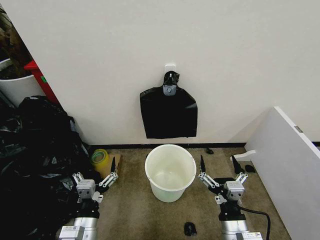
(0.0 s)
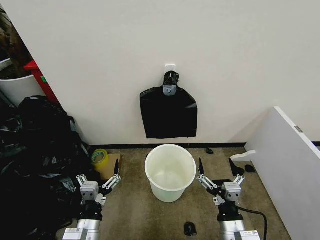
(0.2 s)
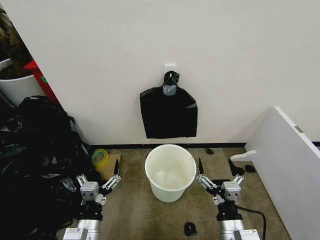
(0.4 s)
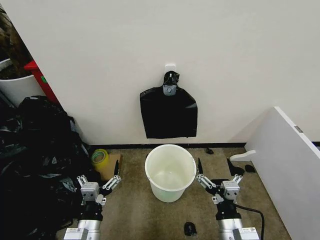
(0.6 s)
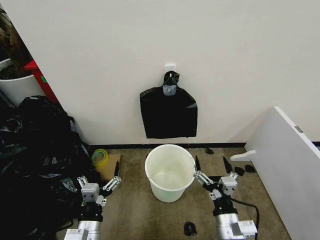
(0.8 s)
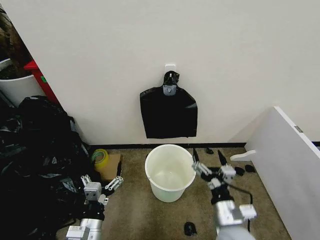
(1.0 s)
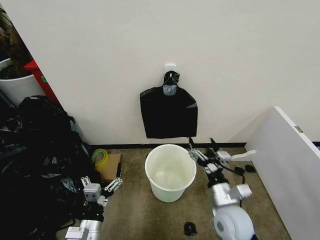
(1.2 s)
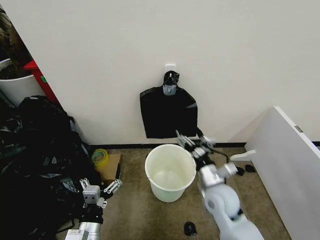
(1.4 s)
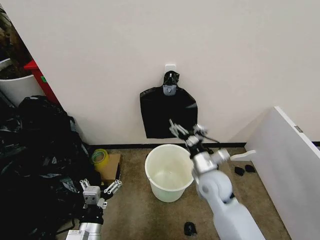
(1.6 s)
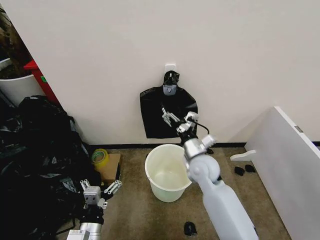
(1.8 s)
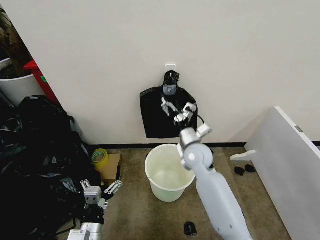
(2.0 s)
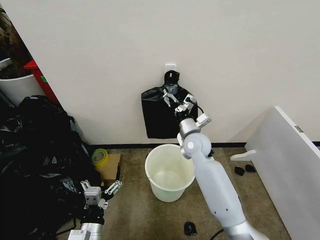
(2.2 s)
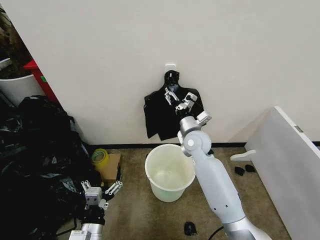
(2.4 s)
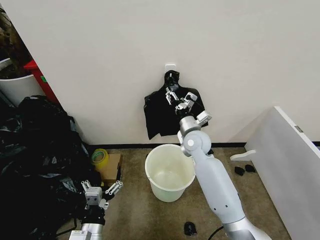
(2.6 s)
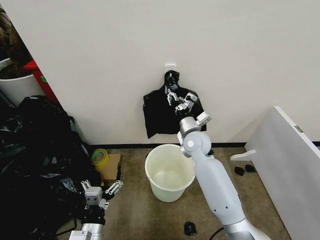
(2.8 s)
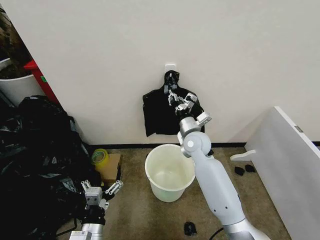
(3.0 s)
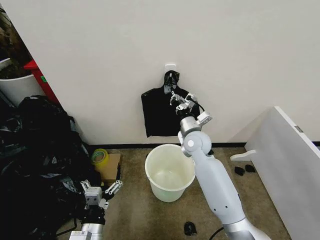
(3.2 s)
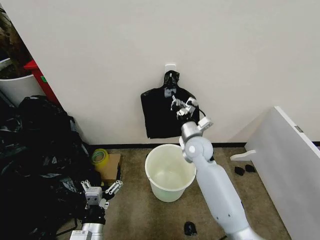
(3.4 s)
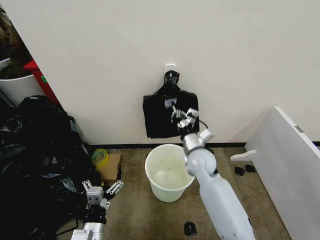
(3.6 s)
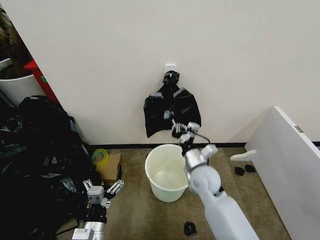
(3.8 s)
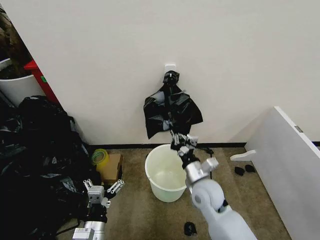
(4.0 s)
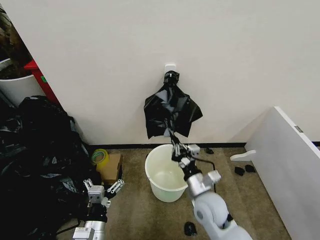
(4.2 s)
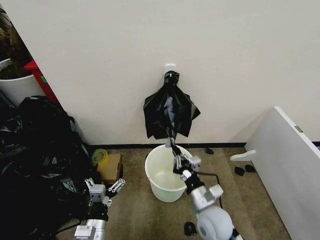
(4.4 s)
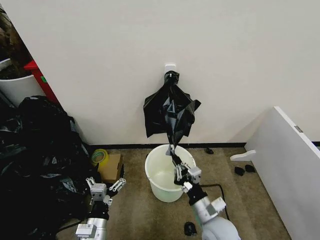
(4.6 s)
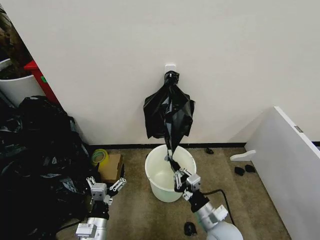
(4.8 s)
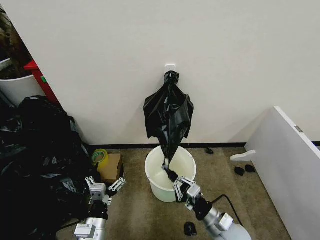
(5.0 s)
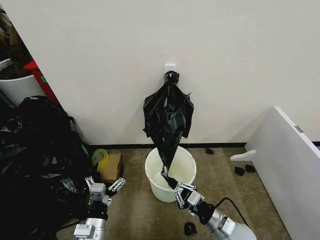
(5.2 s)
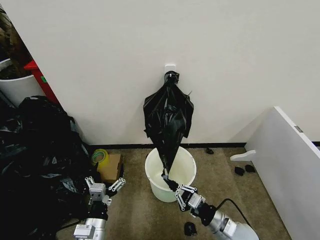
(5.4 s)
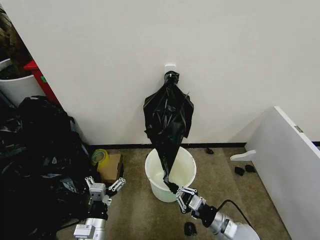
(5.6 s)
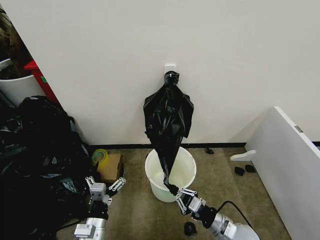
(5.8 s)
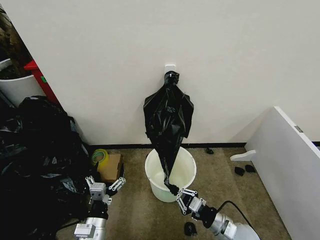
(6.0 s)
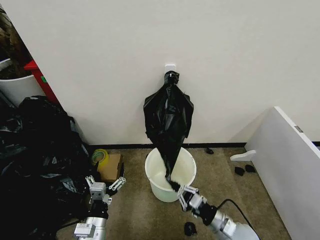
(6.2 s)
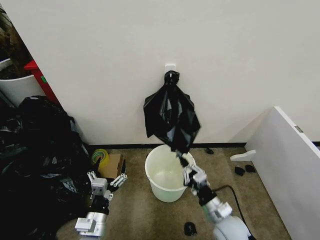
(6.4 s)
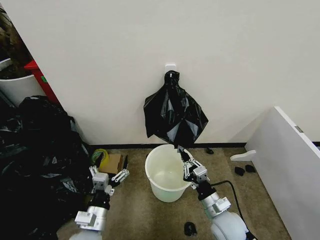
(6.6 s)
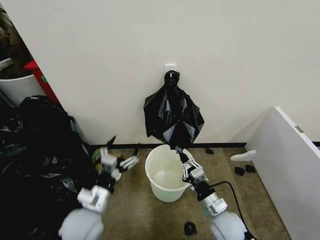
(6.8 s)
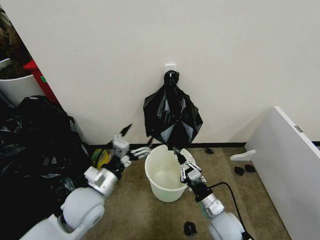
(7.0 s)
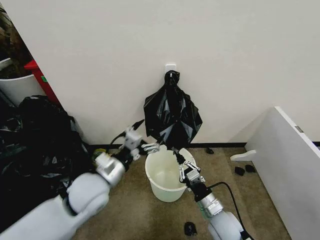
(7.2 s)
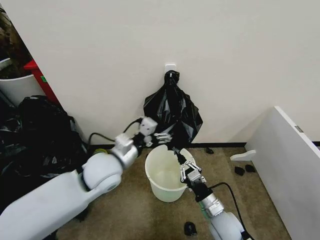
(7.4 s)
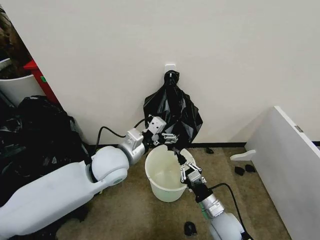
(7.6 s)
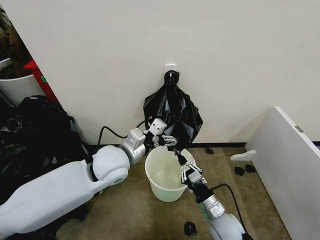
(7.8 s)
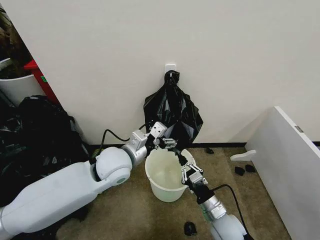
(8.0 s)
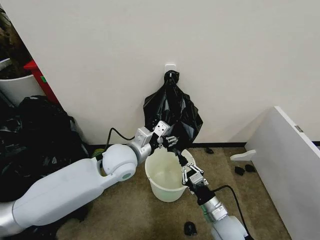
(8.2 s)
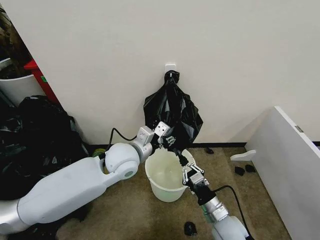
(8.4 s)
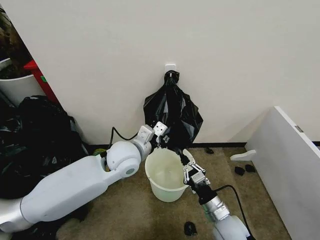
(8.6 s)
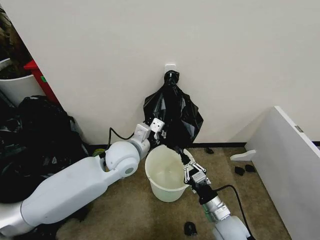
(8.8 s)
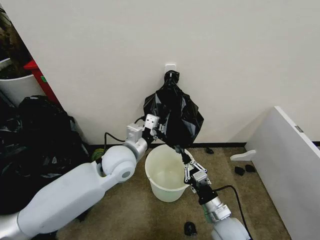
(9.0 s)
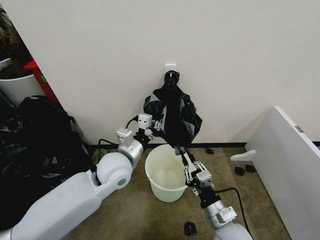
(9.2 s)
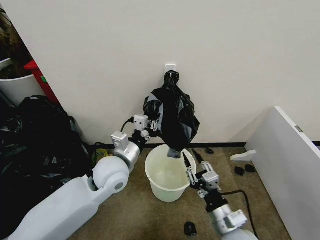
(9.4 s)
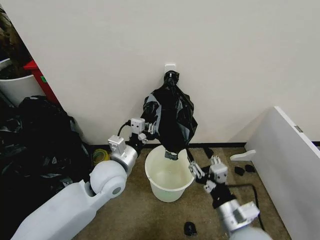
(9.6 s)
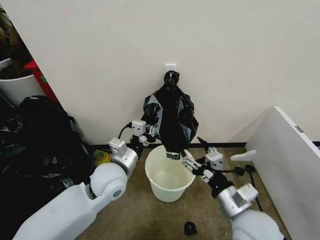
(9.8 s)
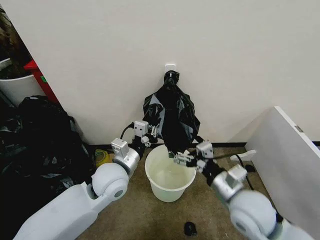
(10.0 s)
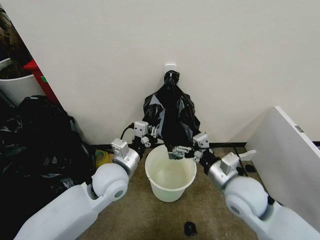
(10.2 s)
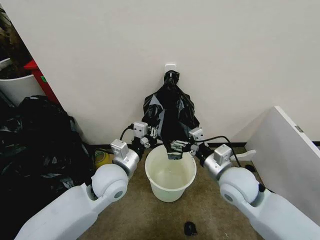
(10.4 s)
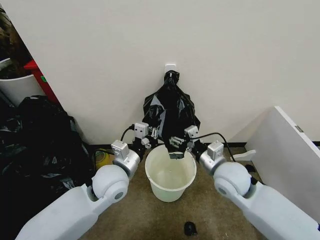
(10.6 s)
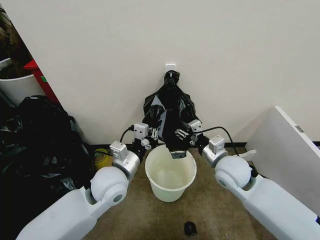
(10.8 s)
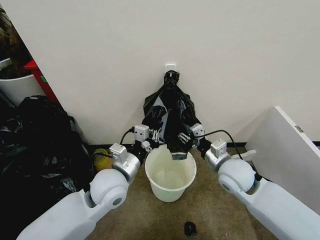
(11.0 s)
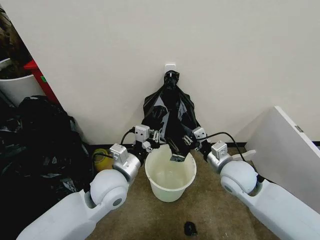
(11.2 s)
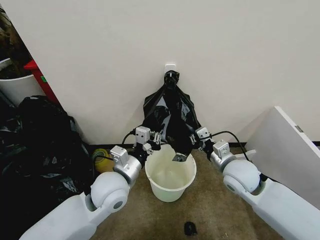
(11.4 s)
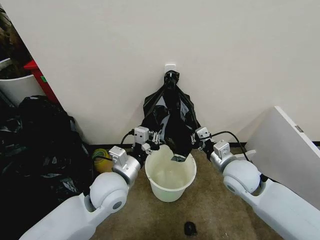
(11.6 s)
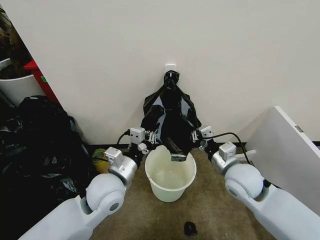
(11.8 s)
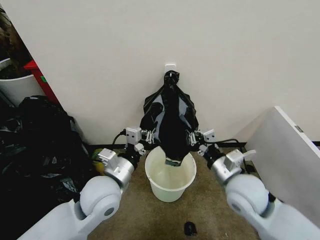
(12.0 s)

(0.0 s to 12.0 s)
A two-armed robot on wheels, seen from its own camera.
Task of the whole recording: Place the garbage bag over the trash bin.
1.6 s - 3.0 s: The right gripper shifts some 10 cm forward, and closes up.
3.0 s - 4.4 s: The right gripper heads backward and downward, covering roughly 25 cm.
4.4 s - 6.0 s: The right gripper travels to the right and downward by about 10 cm.
6.0 s - 7.6 s: The left gripper shifts roughly 25 cm upward and forward. Meanwhile the right gripper moves about 5 cm.
7.6 s - 9.0 s: The left gripper closes up.
9.0 s - 10.4 s: The left gripper changes place by roughly 5 cm. Meanwhile the right gripper goes some 15 cm upward and forward, and opens.
10.4 s - 12.0 s: The right gripper closes up.

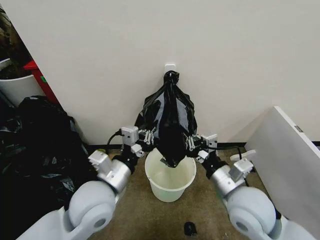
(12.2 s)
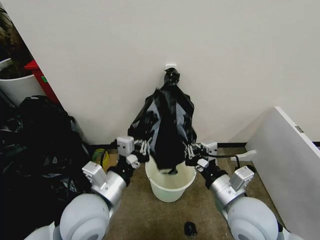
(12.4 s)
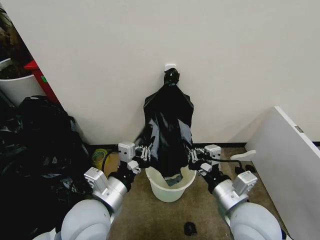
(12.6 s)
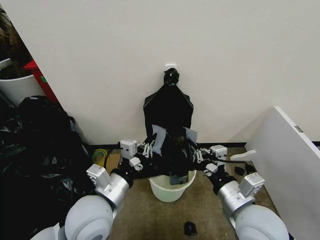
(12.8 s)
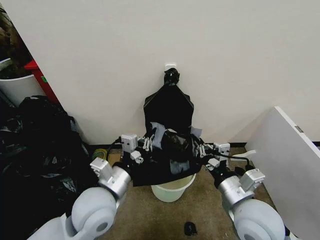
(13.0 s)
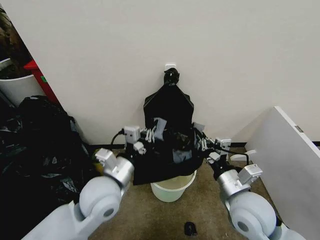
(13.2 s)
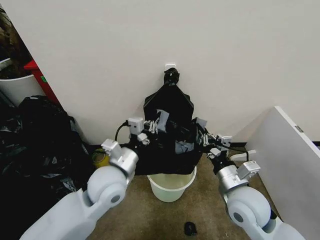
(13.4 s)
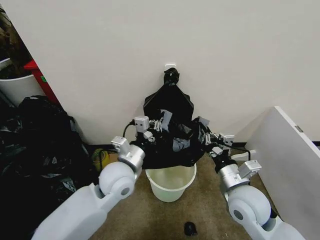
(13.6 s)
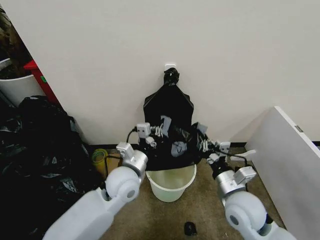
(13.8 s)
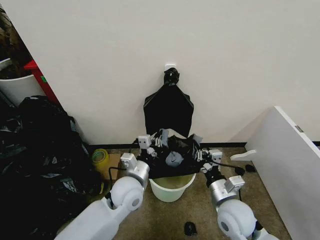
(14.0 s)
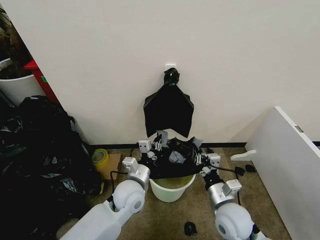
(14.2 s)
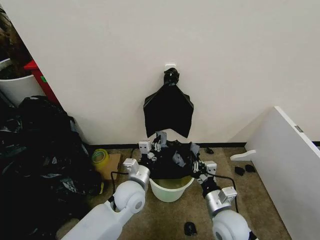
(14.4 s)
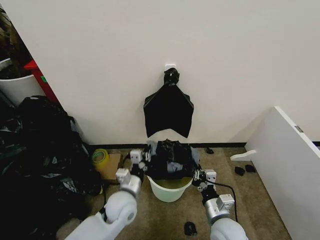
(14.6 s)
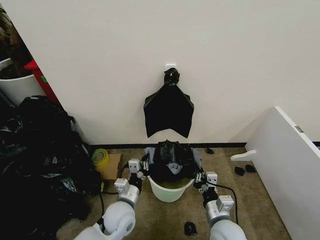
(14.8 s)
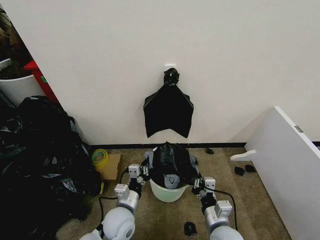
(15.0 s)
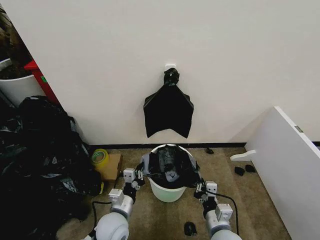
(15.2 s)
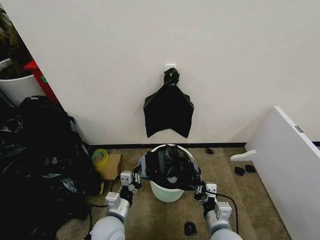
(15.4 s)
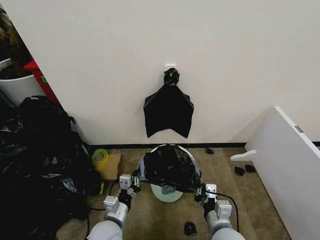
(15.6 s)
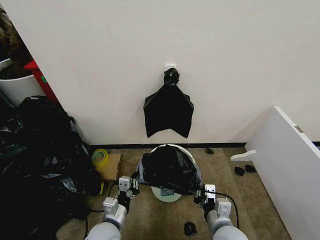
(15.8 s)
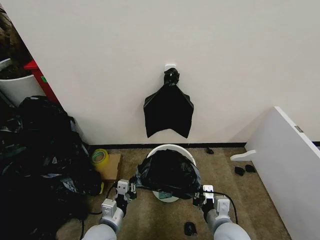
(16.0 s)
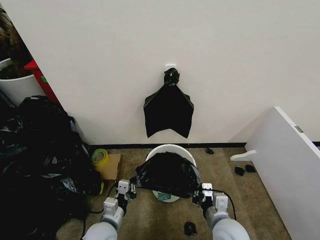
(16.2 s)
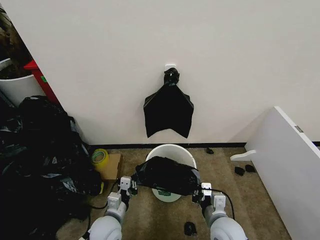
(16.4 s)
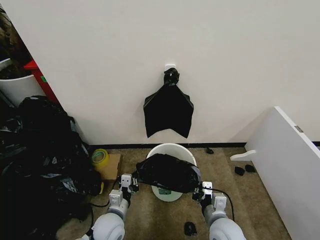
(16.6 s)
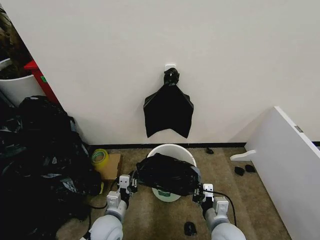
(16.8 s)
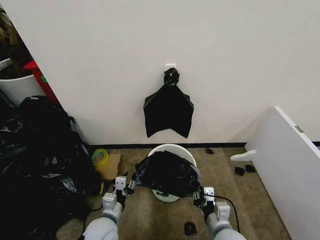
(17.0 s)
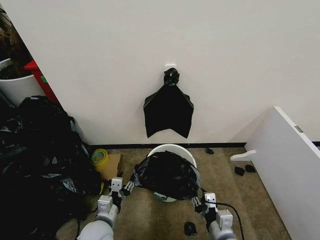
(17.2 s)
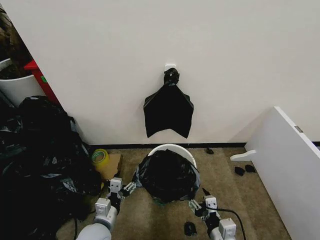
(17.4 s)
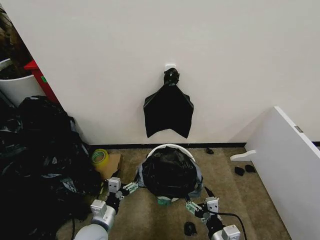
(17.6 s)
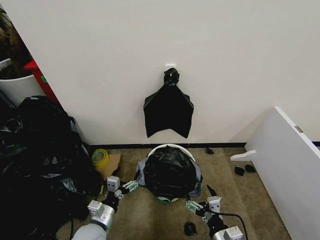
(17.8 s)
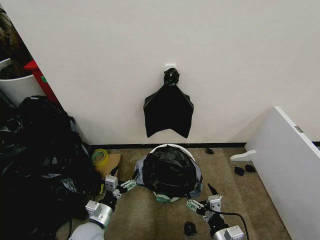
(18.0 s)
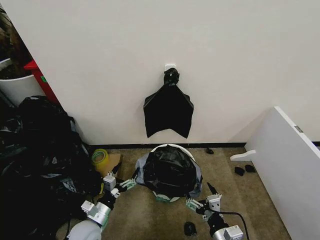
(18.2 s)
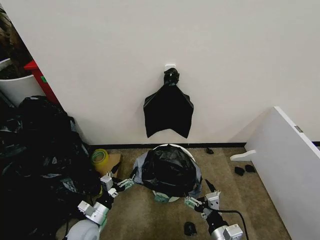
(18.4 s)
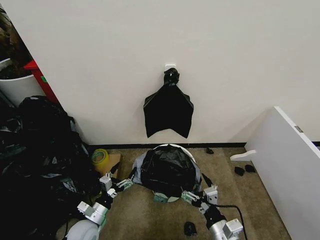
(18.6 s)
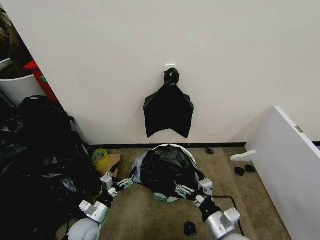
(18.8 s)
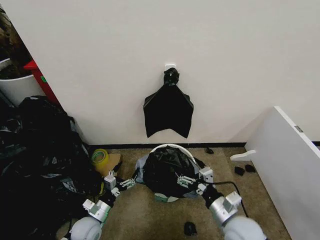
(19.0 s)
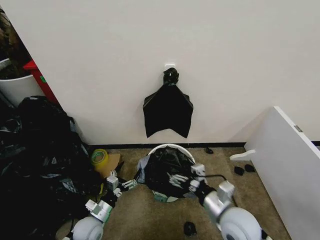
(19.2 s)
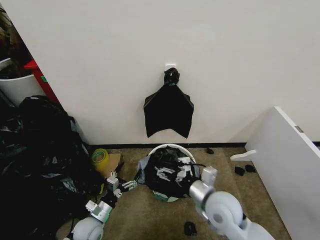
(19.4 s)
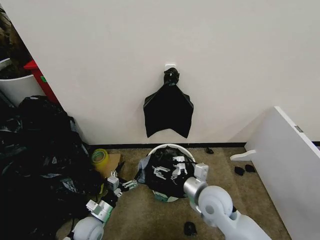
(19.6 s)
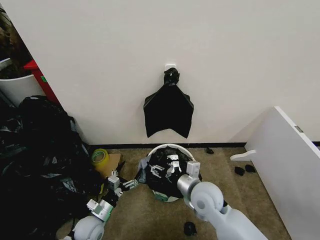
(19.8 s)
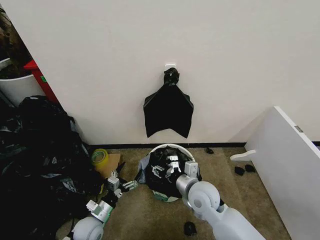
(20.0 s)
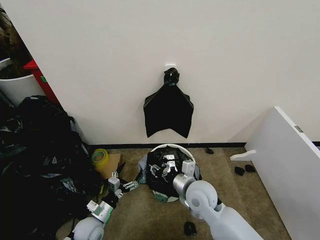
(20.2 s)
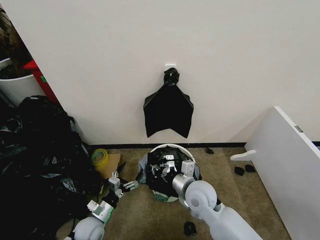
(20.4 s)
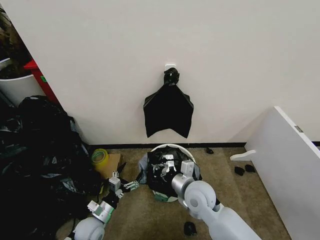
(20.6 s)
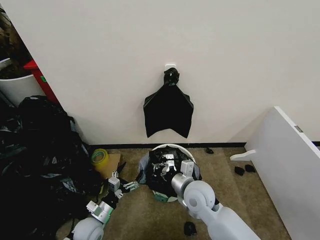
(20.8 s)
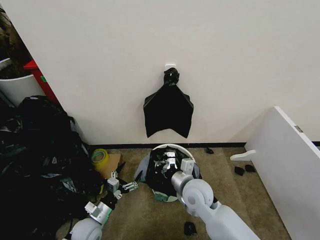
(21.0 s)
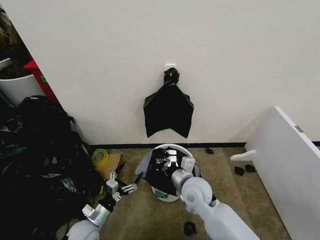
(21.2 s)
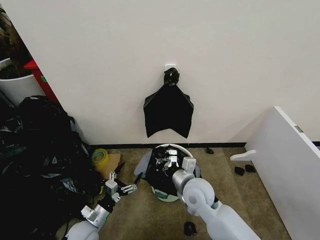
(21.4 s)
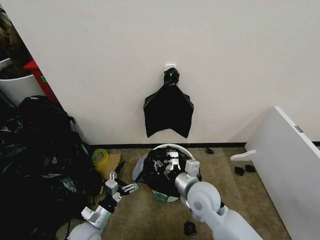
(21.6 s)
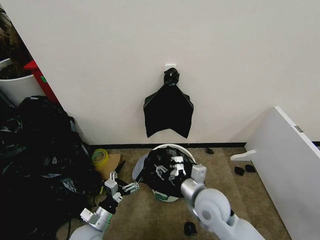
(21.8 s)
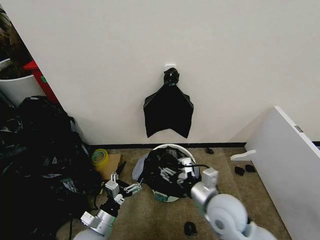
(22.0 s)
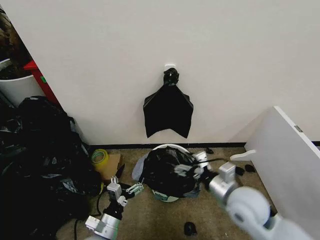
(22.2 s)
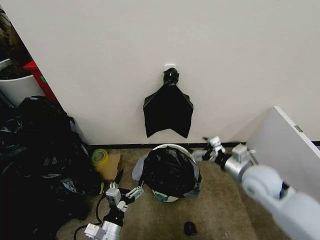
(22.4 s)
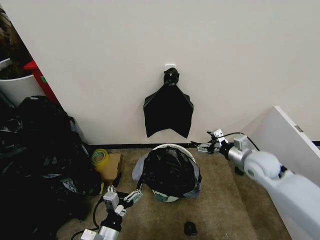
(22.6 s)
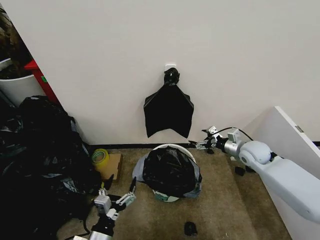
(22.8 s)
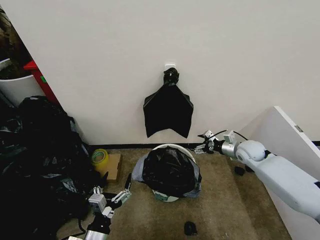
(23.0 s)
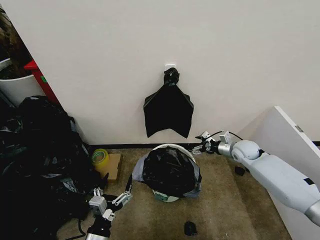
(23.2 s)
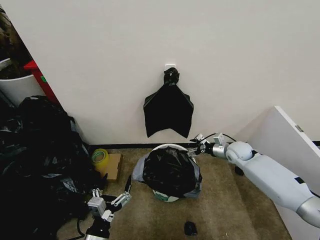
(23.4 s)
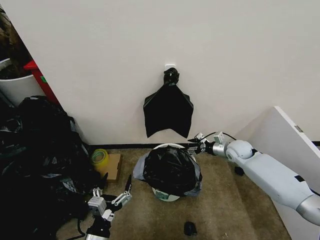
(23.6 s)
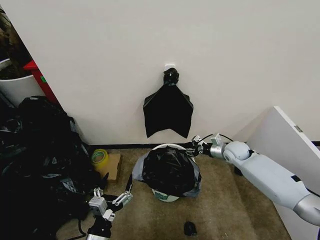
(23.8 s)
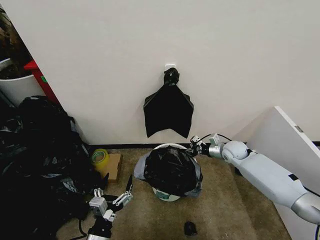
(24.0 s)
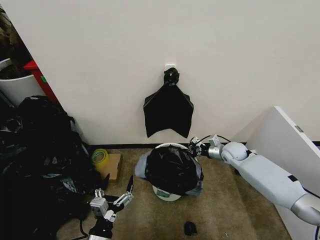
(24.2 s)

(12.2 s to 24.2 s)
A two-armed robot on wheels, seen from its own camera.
Task of the whole recording: Place the garbage bag over the trash bin.
12.2 s - 13.8 s: The left gripper moves forward and downward, roughly 10 cm; the right gripper goes roughly 5 cm downward.
13.8 s - 15.2 s: The two grippers go about 15 cm downward and backward.
16.6 s - 18.2 s: The right gripper moves backward, approximately 10 cm, and opens its fingers; the left gripper heads to the left, covering about 10 cm, and opens.
18.2 s - 19.8 s: The right gripper travels forward, upward and to the left by roughly 20 cm.
19.8 s - 21.2 s: The right gripper closes.
21.2 s - 22.6 s: The right gripper moves to the right, approximately 20 cm, and opens its fingers. The left gripper goes roughly 15 cm backward, to the right and upward.
22.6 s - 24.2 s: The right gripper goes approximately 15 cm forward and downward, and closes up.
